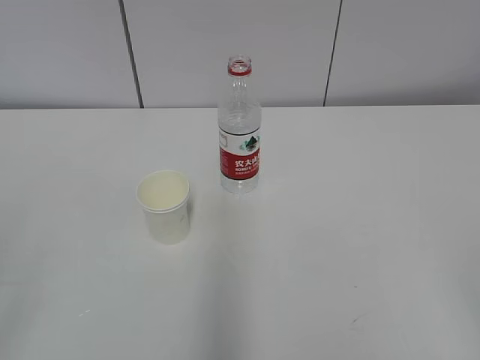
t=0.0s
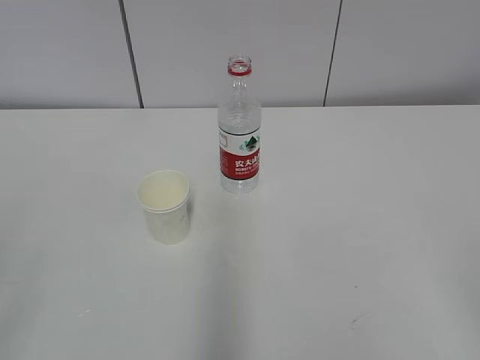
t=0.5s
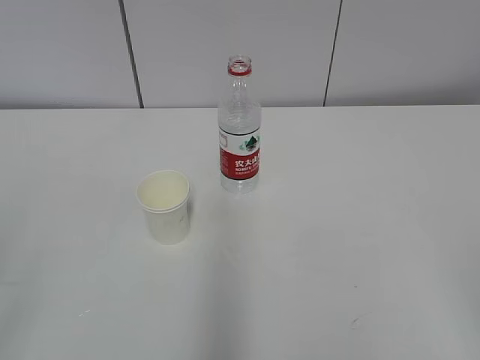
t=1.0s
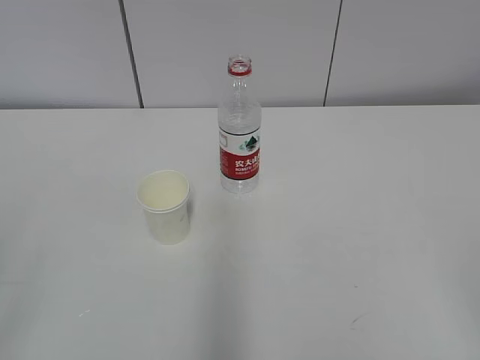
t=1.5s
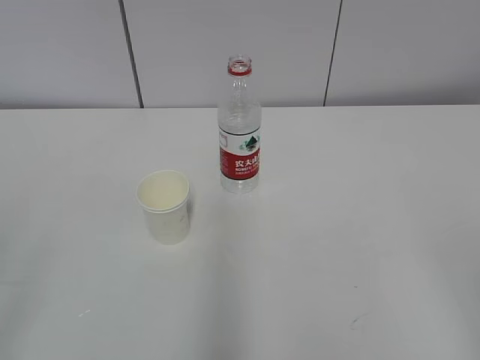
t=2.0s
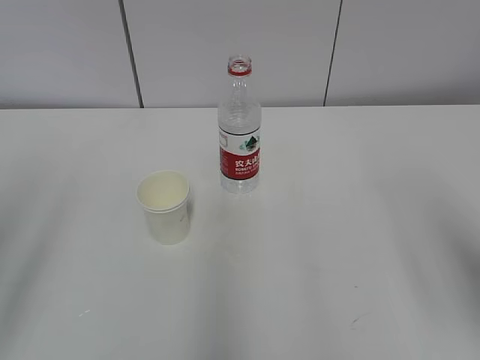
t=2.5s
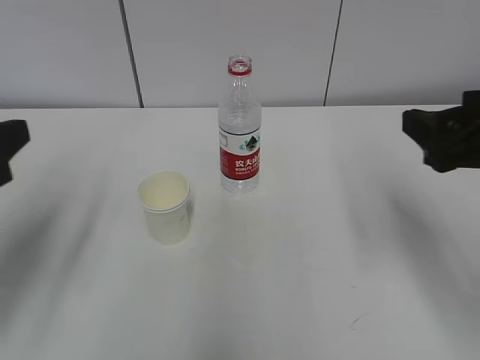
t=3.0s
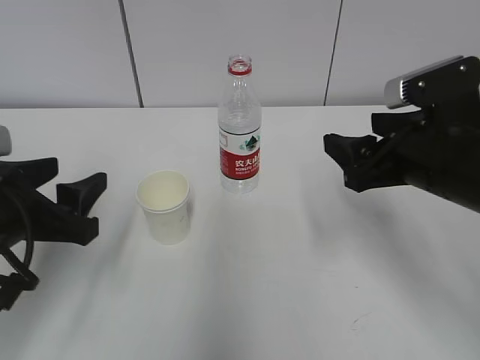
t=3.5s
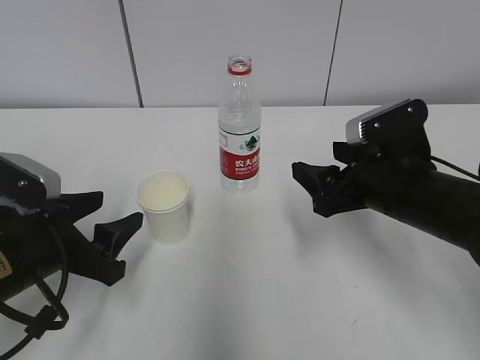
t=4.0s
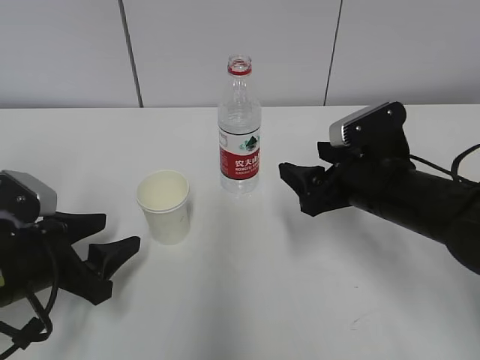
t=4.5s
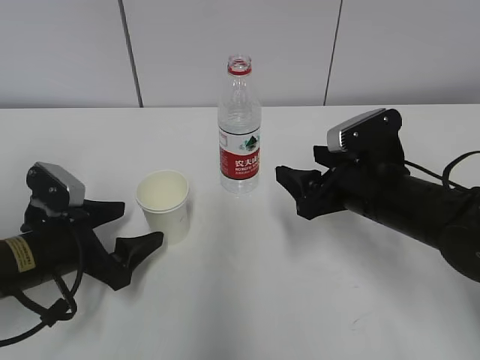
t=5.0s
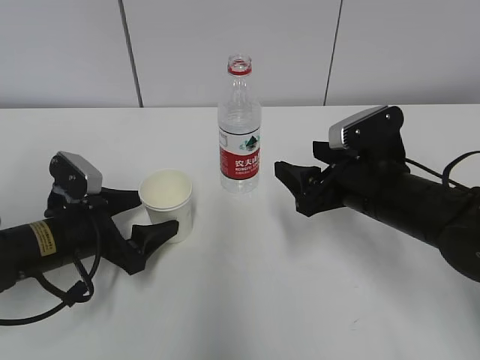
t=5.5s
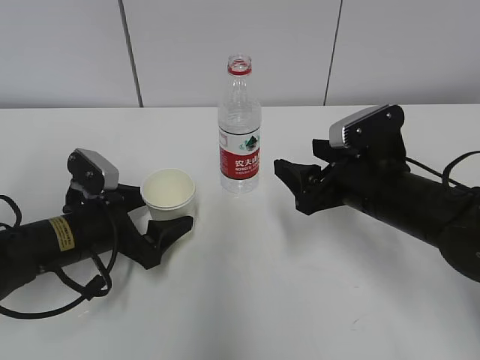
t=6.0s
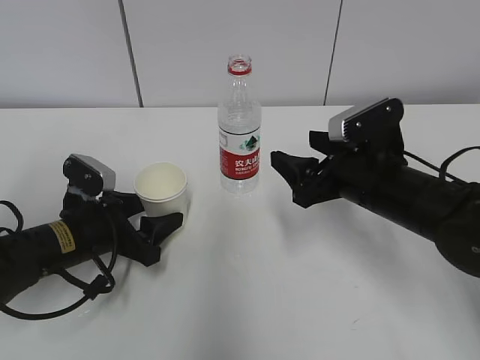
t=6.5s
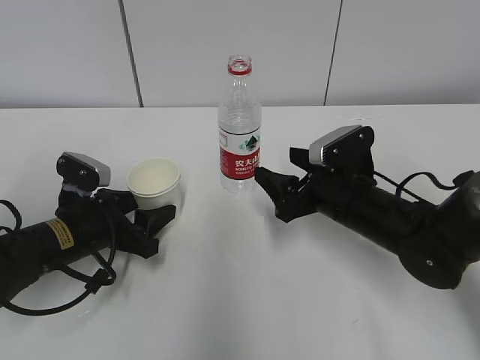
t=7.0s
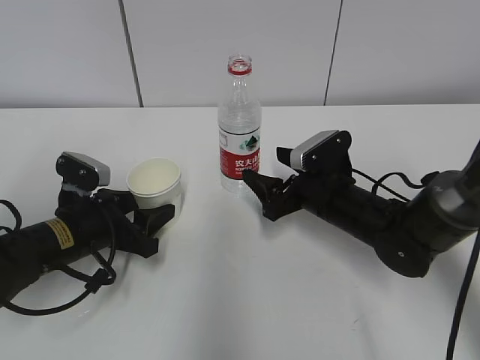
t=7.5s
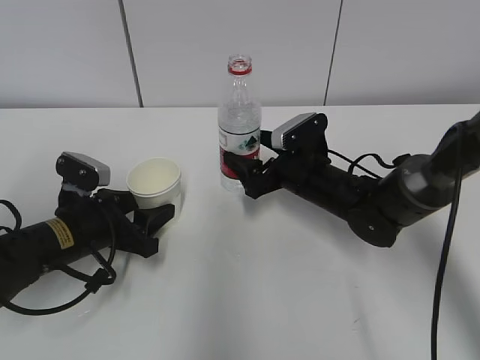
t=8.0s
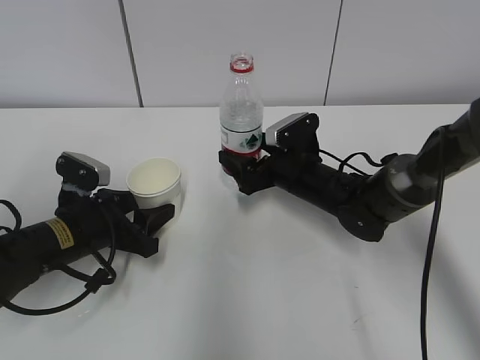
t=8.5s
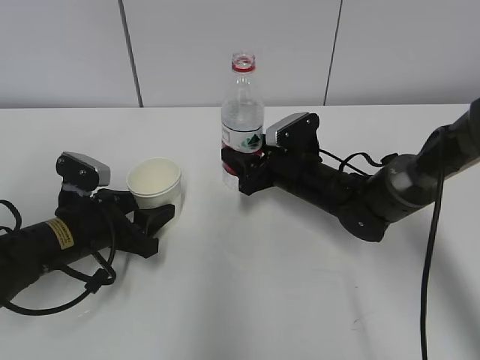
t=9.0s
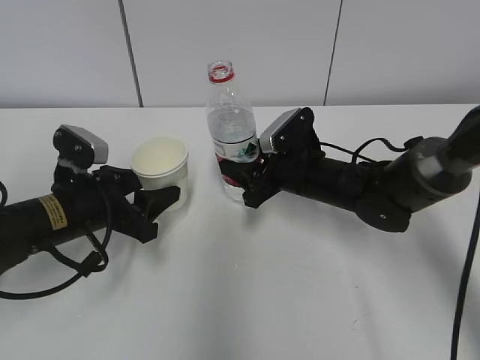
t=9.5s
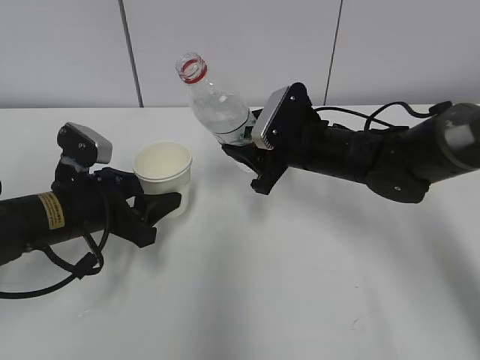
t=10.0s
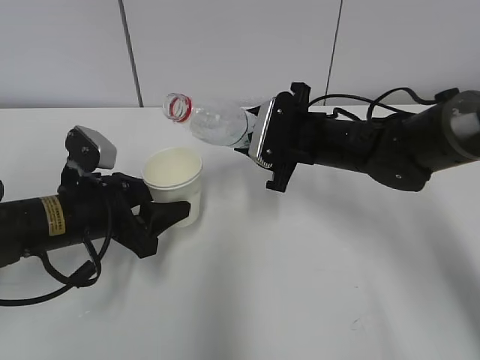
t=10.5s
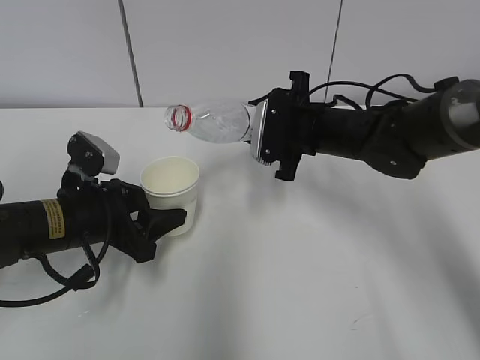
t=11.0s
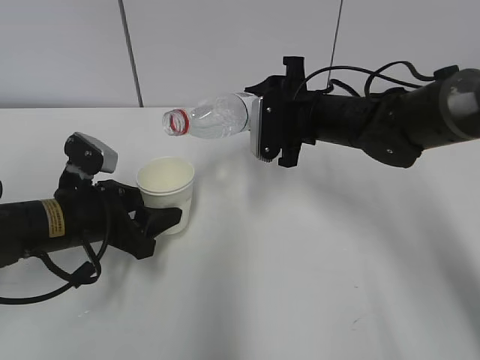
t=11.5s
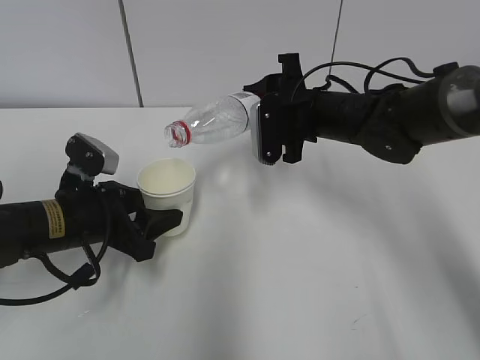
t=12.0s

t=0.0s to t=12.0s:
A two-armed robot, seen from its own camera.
Step, t=0.0s to t=5.5s: Grab the paper cup with the left hand.
Step, t=6.0s to t=7.5s: Grab the water bottle with the right hand.
Step, t=8.0s to t=9.5s: Lift the paper cup with the left hand.
t=2.0s to t=4.0s: The right gripper is displaced forward and downward by approximately 30 cm; the left gripper heads forward, downward and to the right, covering roughly 30 cm.
t=4.0s to t=6.0s: The left gripper heads forward and downward, covering some 10 cm, and opens up.
t=6.0s to t=8.0s: The left gripper closes up; the right gripper moves forward and downward, roughly 10 cm, and opens.
t=8.0s to t=10.0s: The right gripper heads upward, covering roughly 5 cm, and closes its fingers.

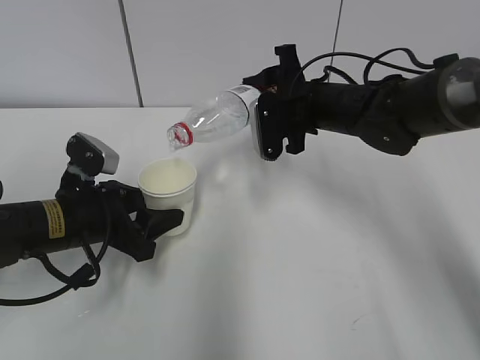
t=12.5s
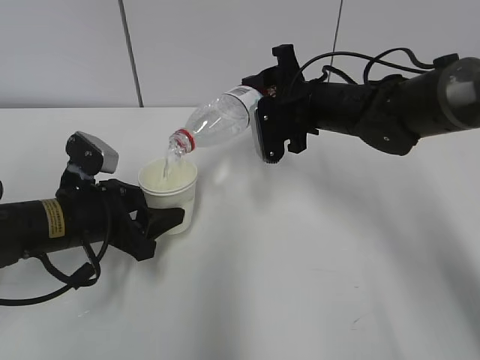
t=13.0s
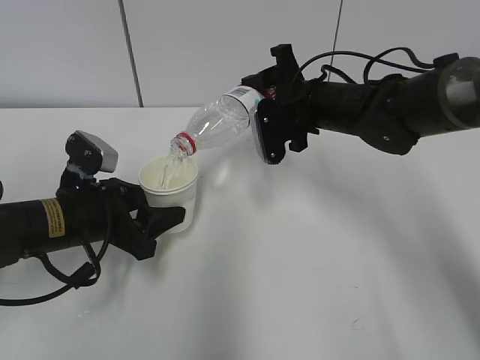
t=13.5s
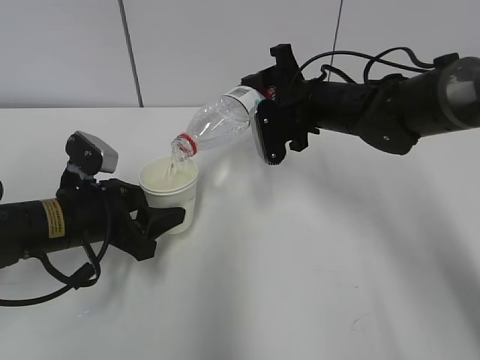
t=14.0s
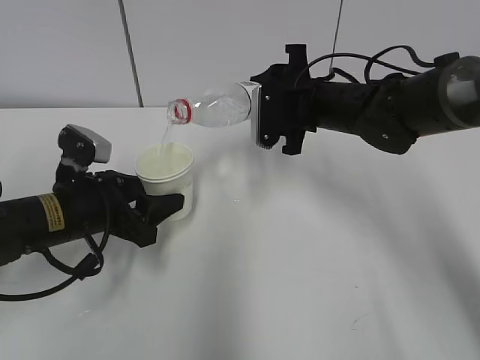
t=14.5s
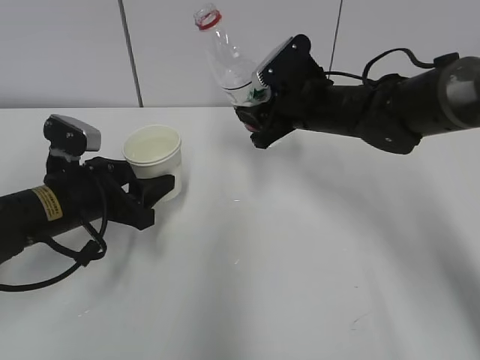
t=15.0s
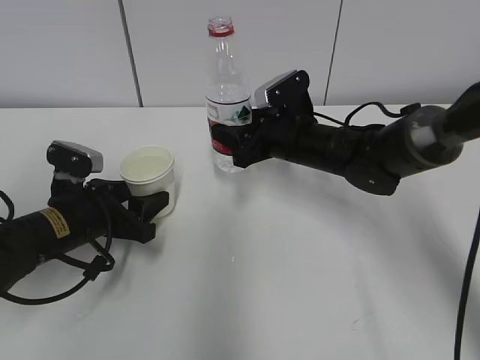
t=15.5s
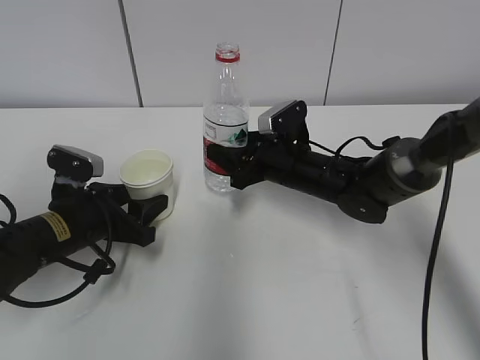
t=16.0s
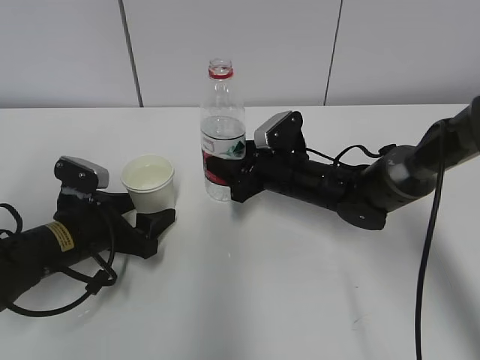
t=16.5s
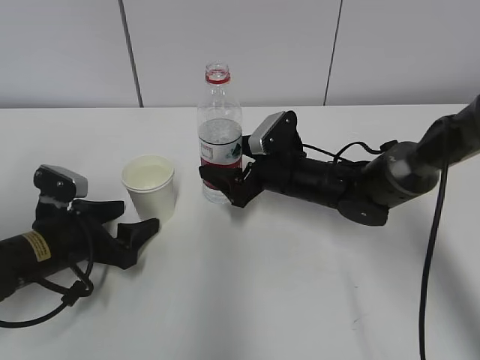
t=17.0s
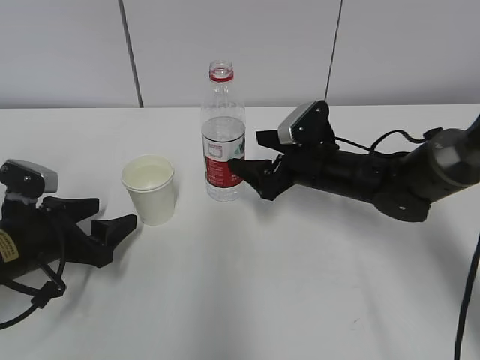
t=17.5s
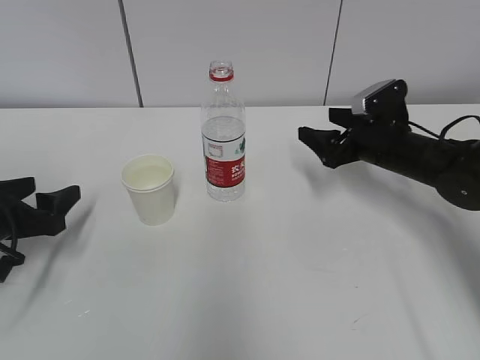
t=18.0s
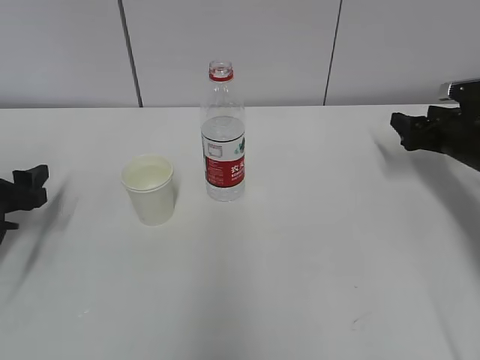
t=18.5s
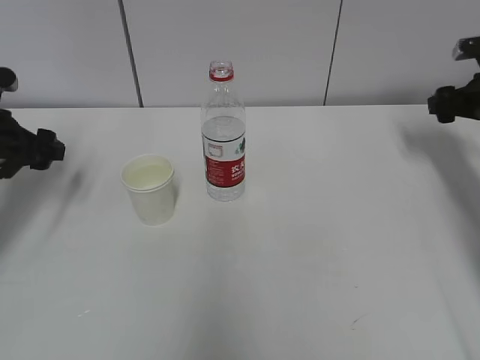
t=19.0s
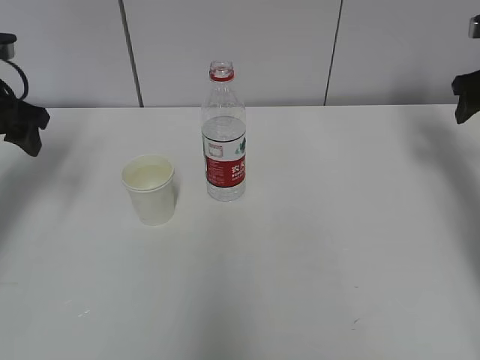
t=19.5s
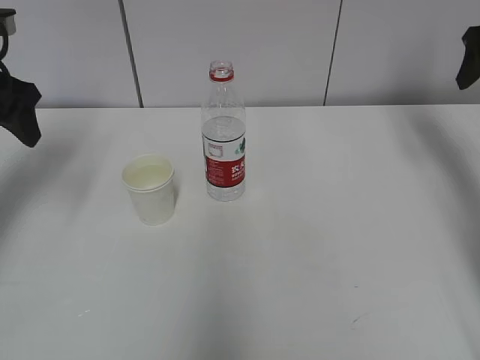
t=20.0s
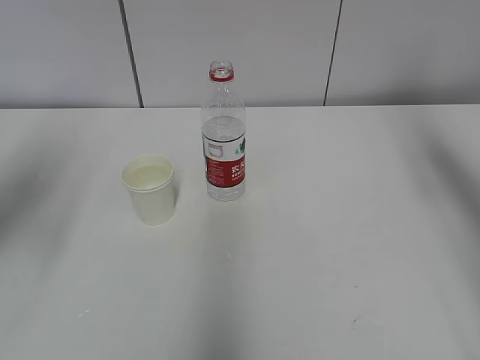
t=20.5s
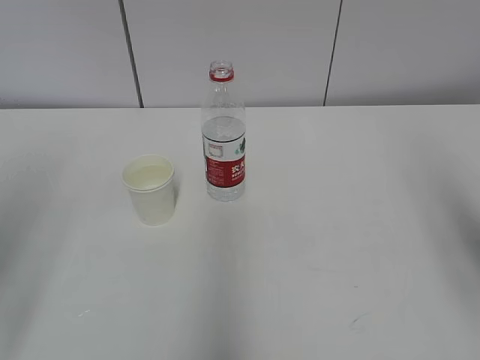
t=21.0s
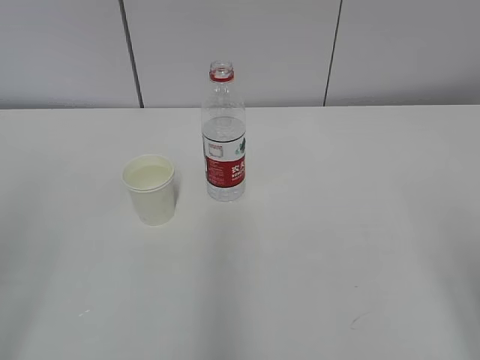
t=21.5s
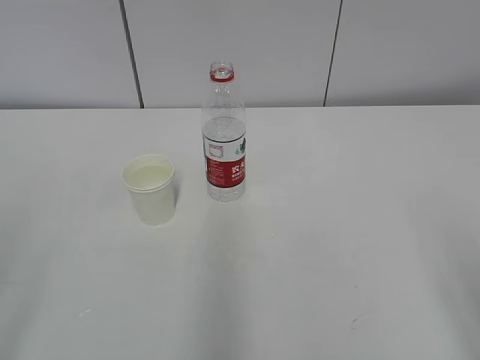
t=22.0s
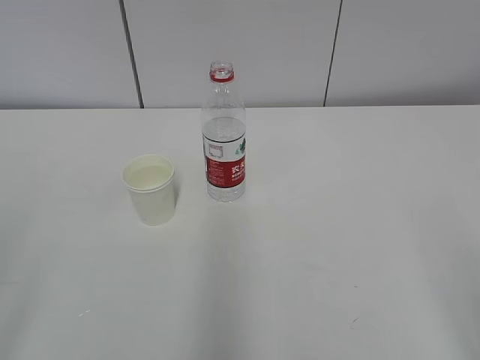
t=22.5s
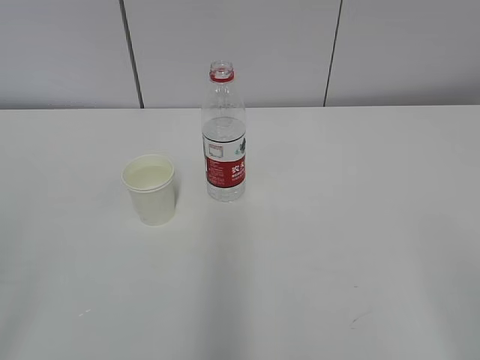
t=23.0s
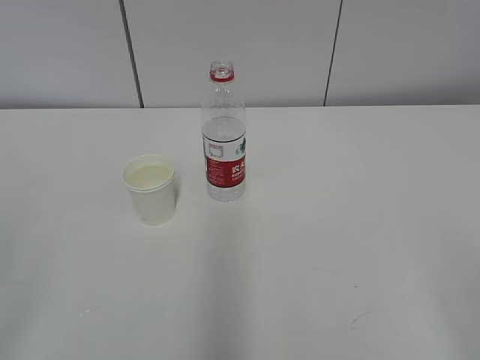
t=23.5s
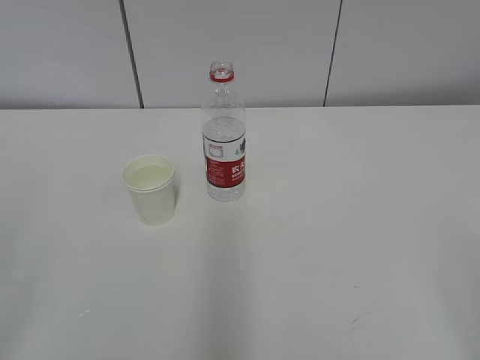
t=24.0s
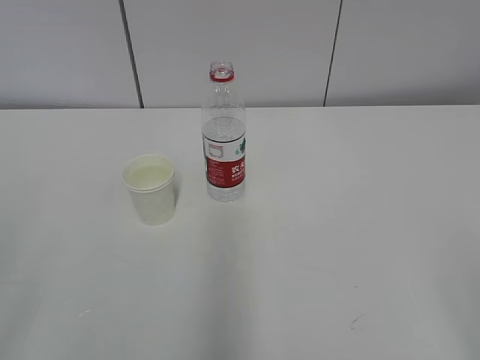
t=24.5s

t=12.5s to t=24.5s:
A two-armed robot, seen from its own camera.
Step, t=13.0s to t=13.5s: Place the paper cup with the left hand.
t=12.5s to t=14.5s: The grippers stay close to where they were, moving slightly.
t=14.5s to t=16.5s: The left gripper travels downward by about 5 cm, and opens. Meanwhile the right gripper shifts approximately 10 cm downward.
t=16.5s to t=18.5s: The left gripper goes some 15 cm to the left. Meanwhile the right gripper shifts some 25 cm to the right, and opens.
t=18.5s to t=20.5s: The right gripper moves upward and backward, some 30 cm. Meanwhile the left gripper heads upward, covering some 20 cm.
t=20.5s to t=22.5s: The two grippers go approximately 30 cm backward.

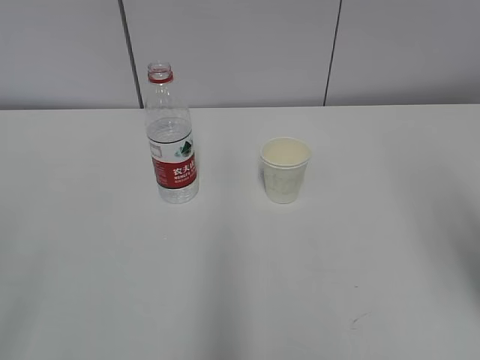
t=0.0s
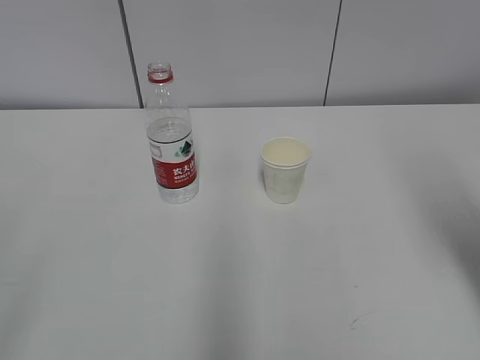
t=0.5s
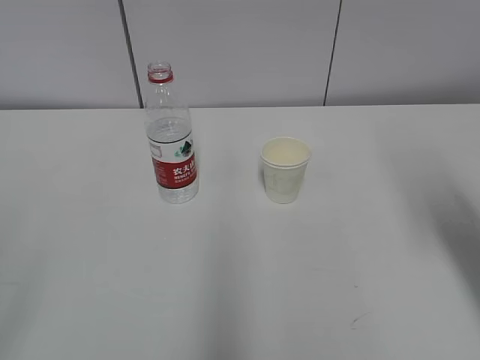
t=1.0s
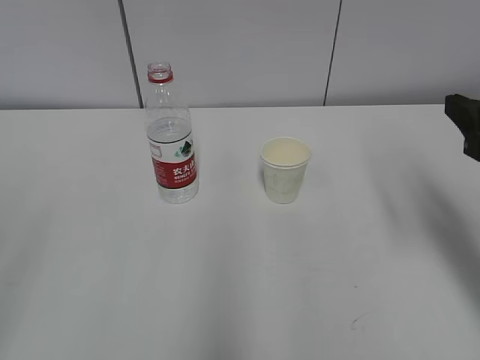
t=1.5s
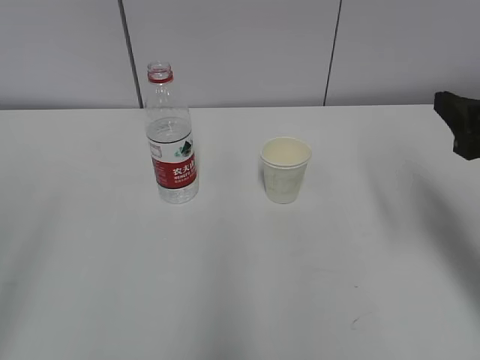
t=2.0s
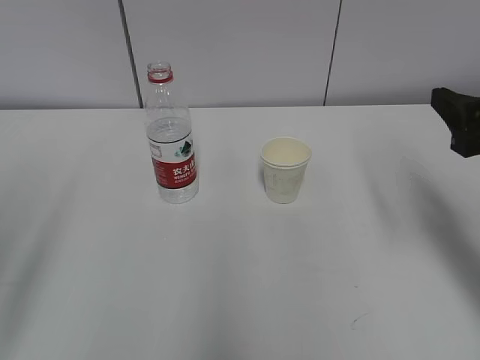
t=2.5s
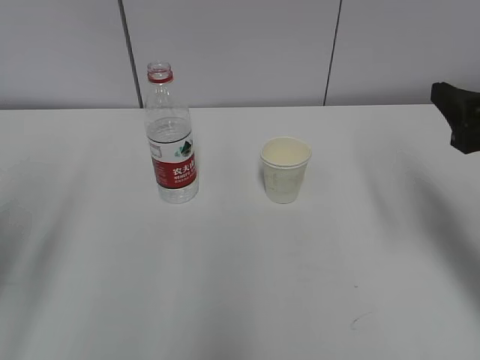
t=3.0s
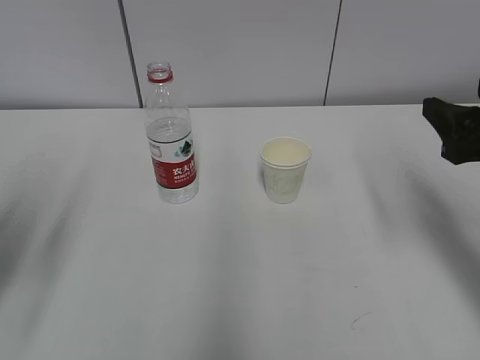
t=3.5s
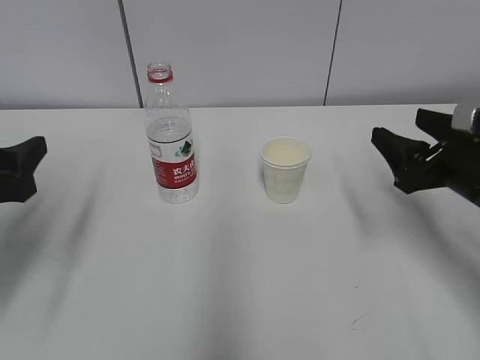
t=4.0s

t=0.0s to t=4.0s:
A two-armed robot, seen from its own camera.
t=0.0s to t=2.0s: The right gripper heads forward and downward, covering roughly 15 cm.
t=2.0s to t=4.0s: The left gripper shifts about 20 cm forward and downward. Meanwhile the right gripper goes approximately 5 cm downward.
